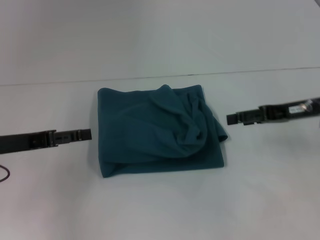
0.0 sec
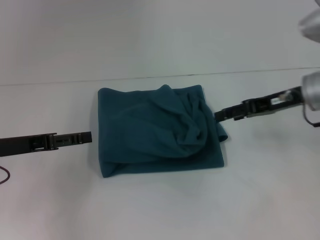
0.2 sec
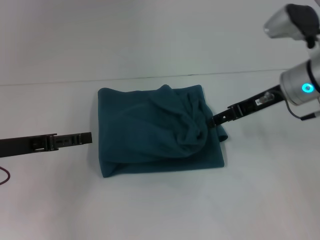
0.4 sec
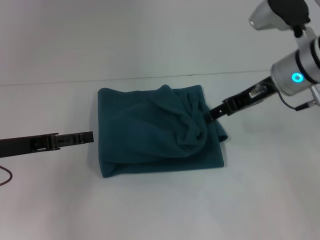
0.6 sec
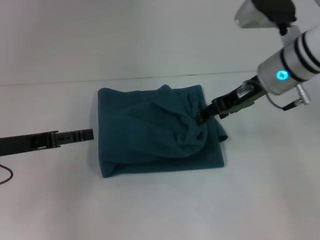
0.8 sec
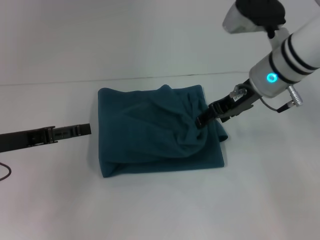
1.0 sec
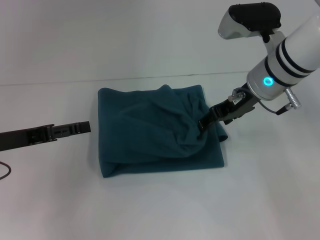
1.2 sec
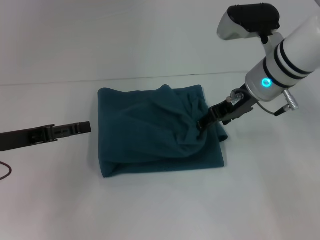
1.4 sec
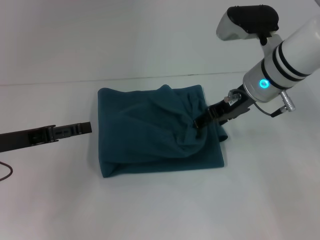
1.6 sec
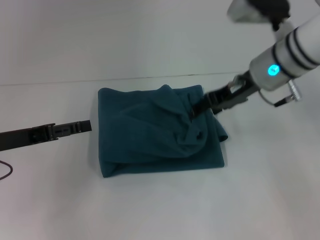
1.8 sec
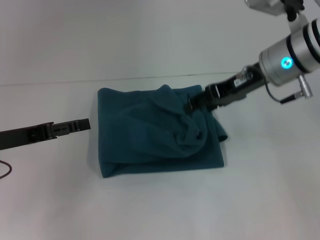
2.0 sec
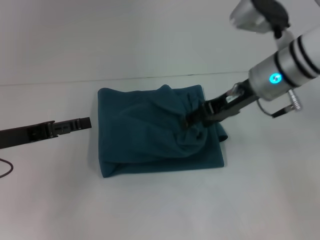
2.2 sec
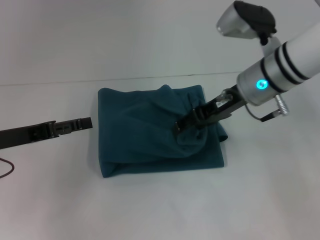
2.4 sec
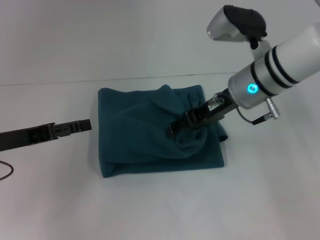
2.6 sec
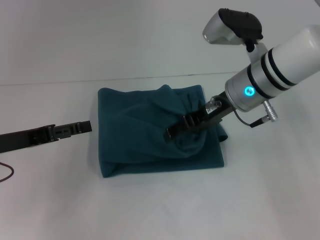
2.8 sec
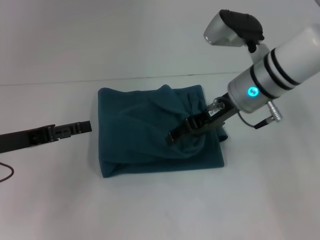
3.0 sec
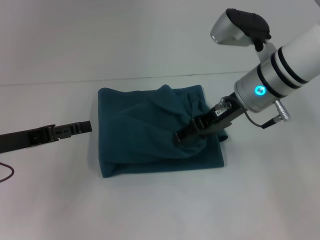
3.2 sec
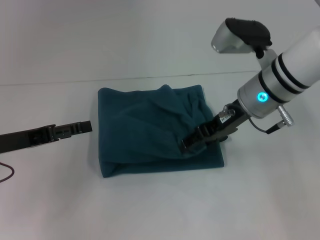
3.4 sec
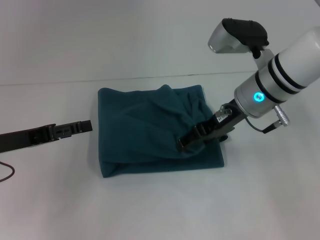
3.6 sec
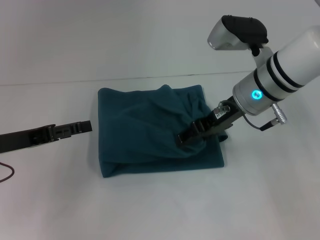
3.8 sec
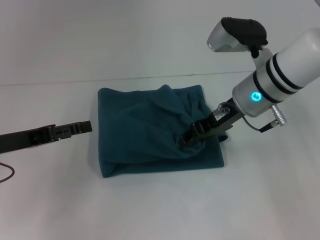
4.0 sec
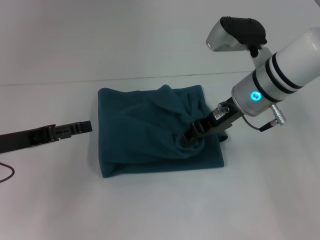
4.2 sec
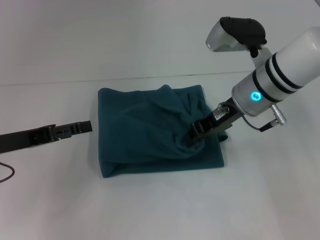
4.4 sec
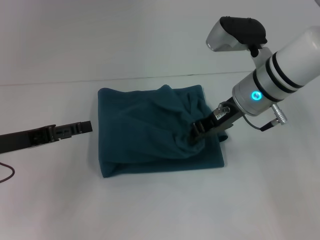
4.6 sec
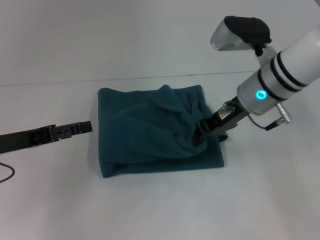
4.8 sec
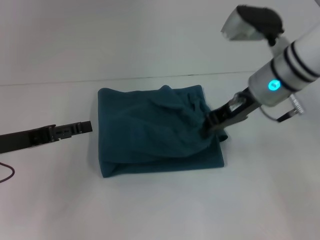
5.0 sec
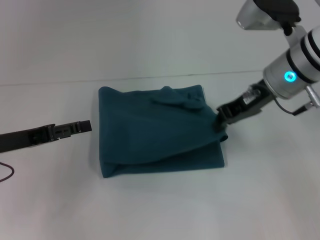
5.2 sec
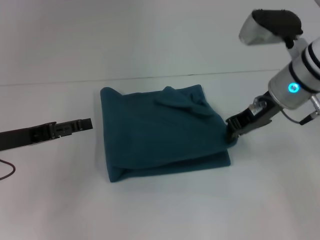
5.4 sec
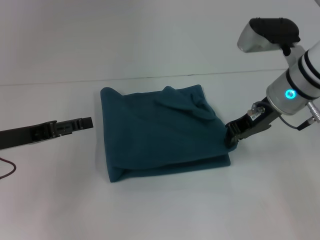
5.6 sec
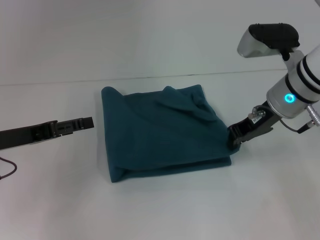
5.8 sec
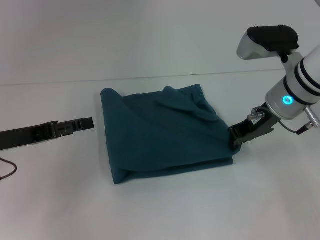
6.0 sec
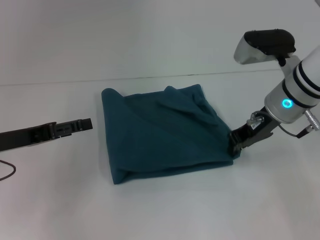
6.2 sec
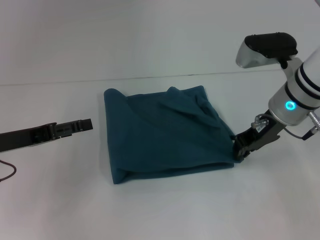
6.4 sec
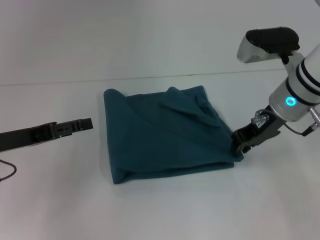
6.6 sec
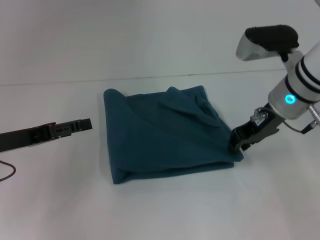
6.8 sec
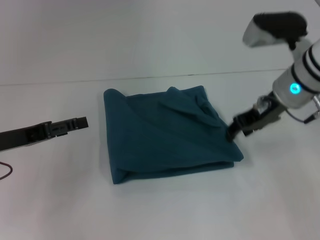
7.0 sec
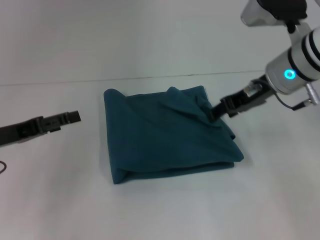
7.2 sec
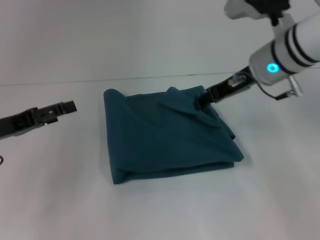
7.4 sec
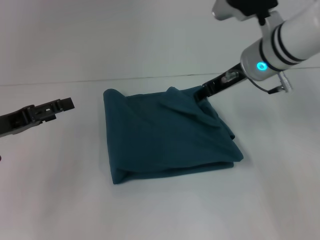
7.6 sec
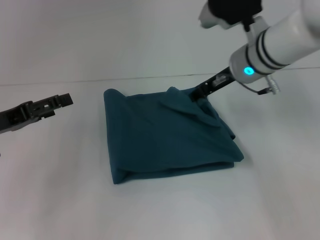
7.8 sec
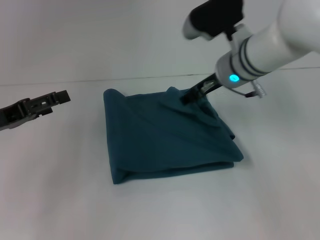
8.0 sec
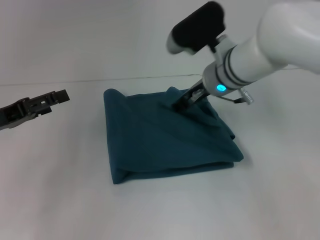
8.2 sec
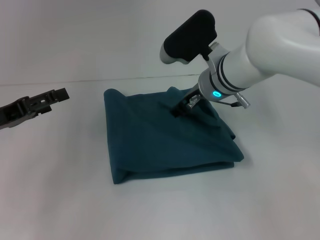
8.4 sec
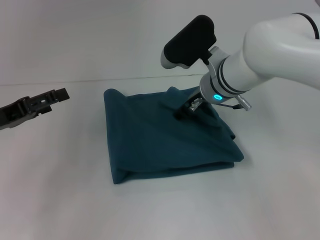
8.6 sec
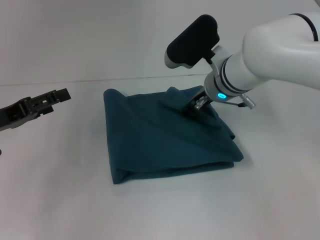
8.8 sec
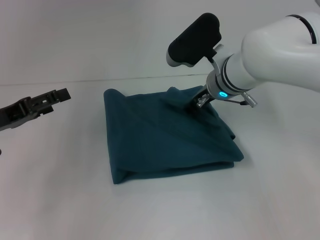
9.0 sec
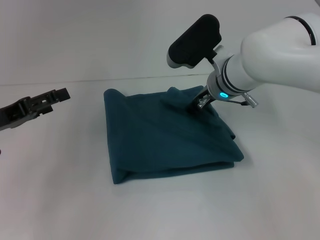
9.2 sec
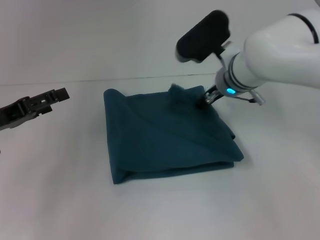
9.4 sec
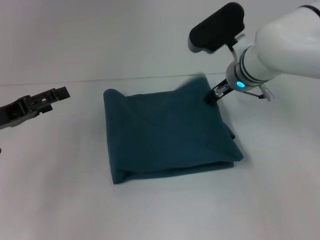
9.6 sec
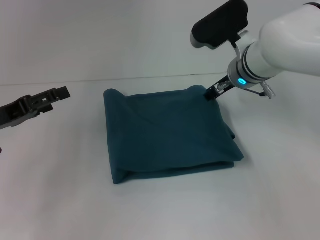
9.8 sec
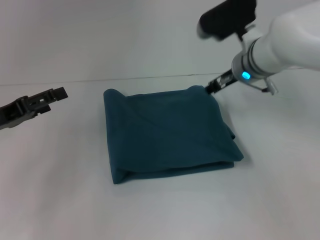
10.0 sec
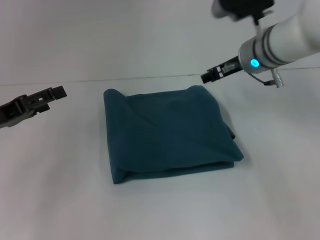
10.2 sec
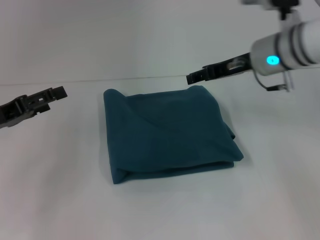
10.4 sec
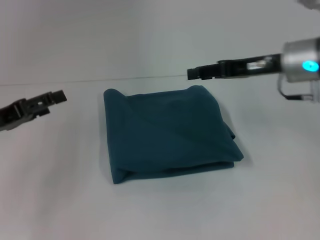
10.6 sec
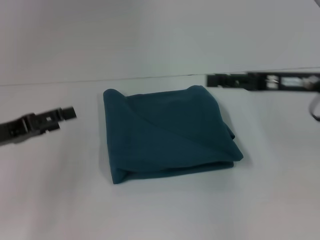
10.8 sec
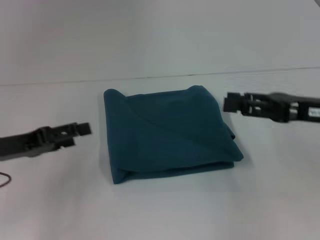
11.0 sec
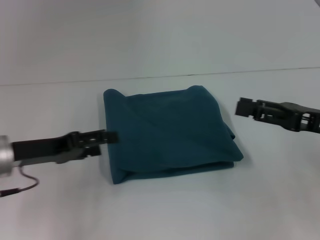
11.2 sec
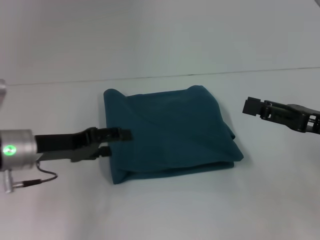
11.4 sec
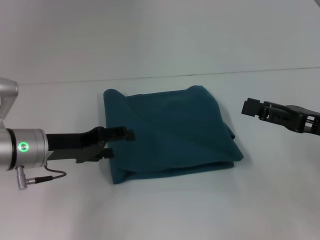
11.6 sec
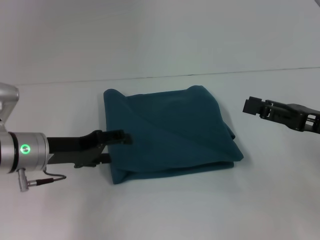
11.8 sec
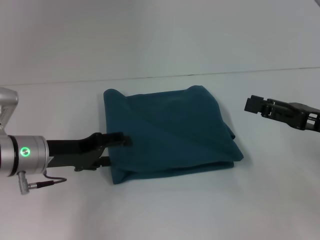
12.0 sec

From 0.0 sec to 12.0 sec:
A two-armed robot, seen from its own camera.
From 0.0 sec to 1.6 sec: The right gripper goes about 10 cm to the left.
From 1.6 sec to 3.0 sec: The grippers move only a little.
From 3.0 sec to 4.4 sec: The right gripper closes.
From 4.4 sec to 6.0 sec: The right gripper closes its fingers.
From 6.0 sec to 7.6 sec: The right gripper moves some 5 cm, and opens.
From 7.6 sec to 9.0 sec: The right gripper is displaced downward and to the left by roughly 10 cm.
From 9.0 sec to 10.4 sec: The right gripper heads to the right, covering roughly 10 cm.
From 10.4 sec to 12.0 sec: The left gripper heads to the right, covering some 10 cm. The right gripper shifts roughly 20 cm backward, to the right and downward.

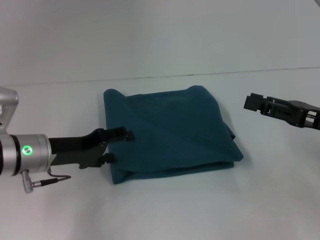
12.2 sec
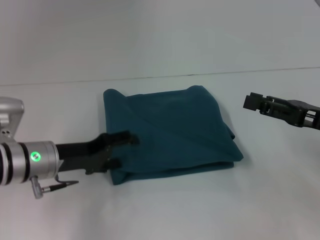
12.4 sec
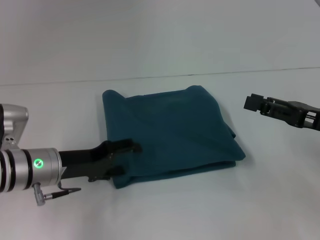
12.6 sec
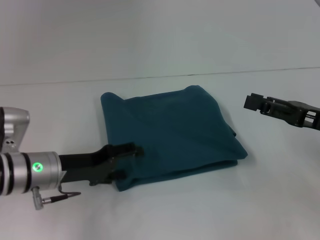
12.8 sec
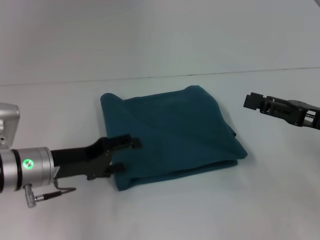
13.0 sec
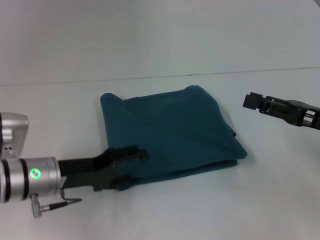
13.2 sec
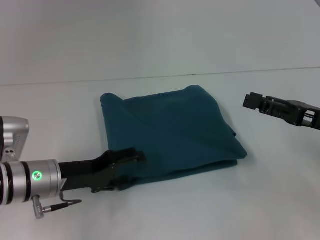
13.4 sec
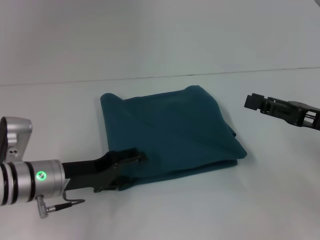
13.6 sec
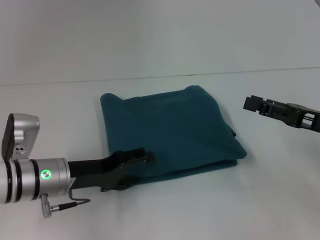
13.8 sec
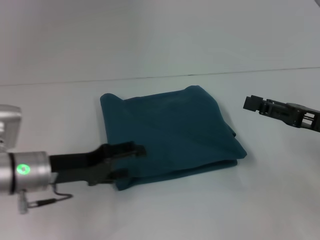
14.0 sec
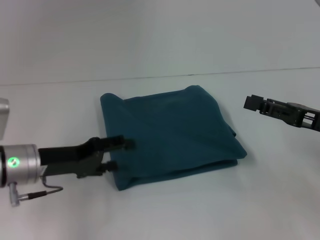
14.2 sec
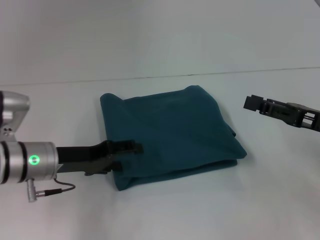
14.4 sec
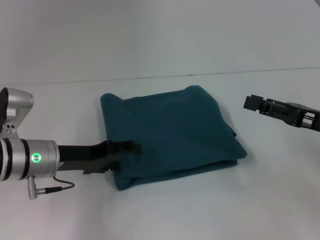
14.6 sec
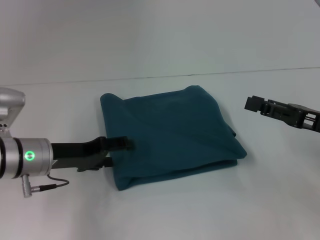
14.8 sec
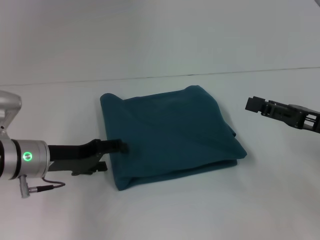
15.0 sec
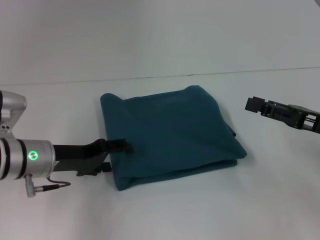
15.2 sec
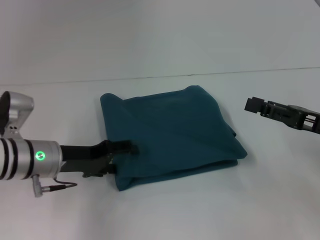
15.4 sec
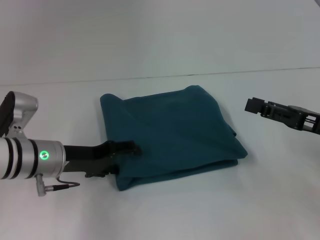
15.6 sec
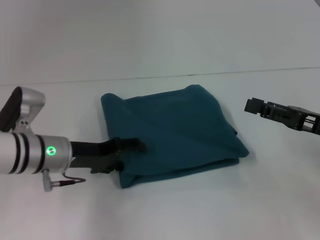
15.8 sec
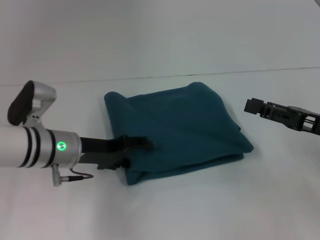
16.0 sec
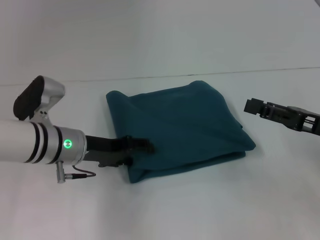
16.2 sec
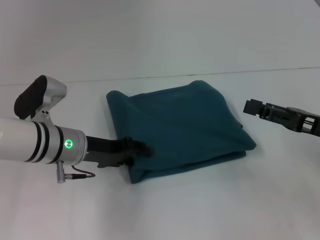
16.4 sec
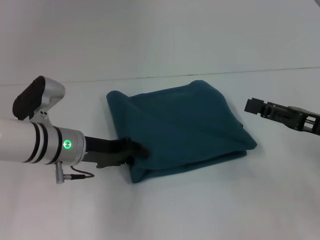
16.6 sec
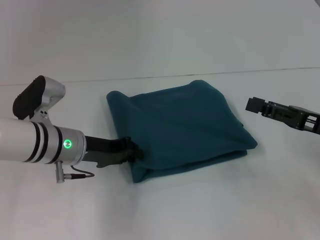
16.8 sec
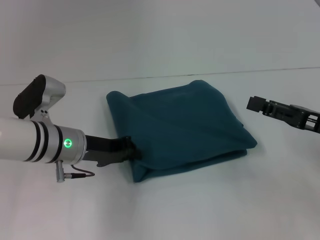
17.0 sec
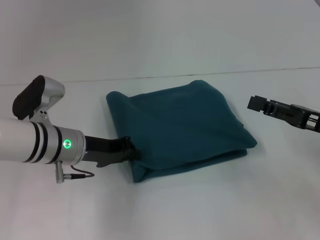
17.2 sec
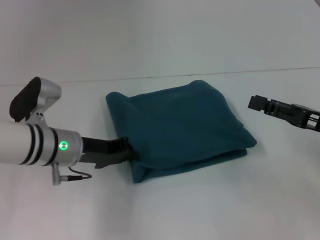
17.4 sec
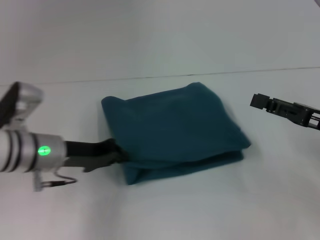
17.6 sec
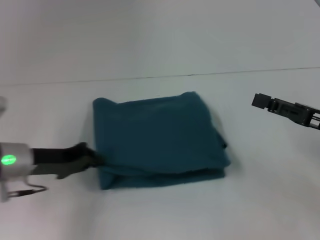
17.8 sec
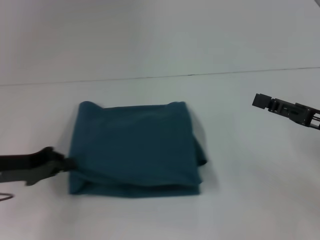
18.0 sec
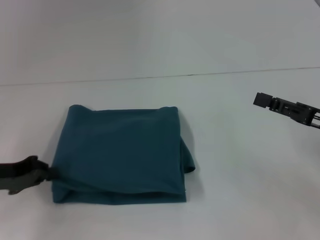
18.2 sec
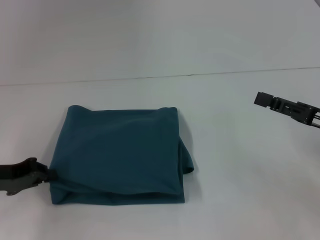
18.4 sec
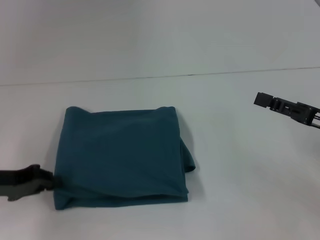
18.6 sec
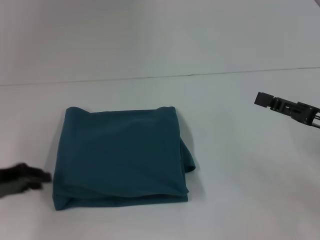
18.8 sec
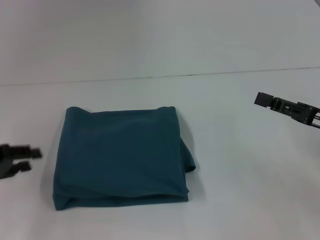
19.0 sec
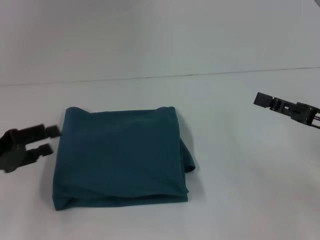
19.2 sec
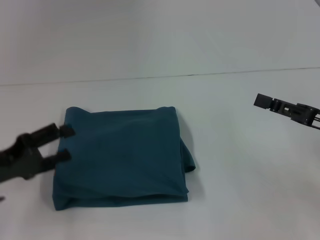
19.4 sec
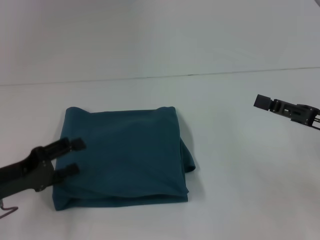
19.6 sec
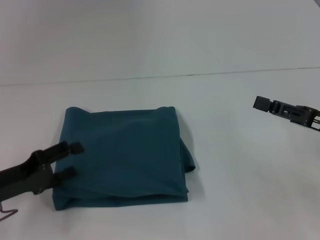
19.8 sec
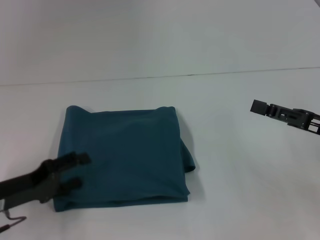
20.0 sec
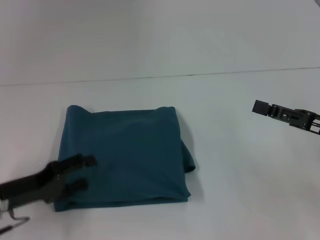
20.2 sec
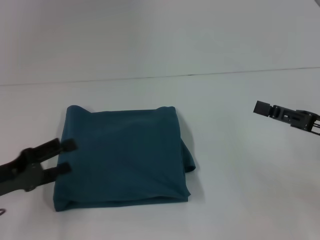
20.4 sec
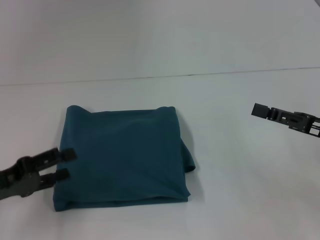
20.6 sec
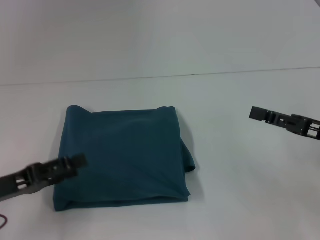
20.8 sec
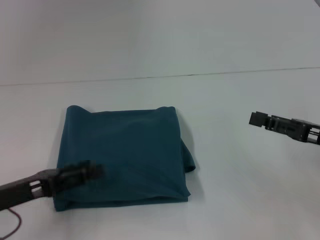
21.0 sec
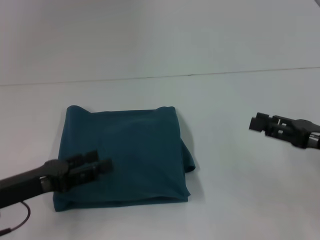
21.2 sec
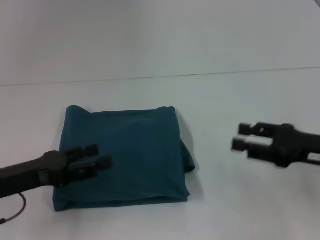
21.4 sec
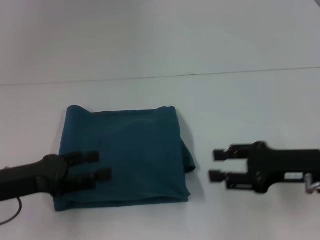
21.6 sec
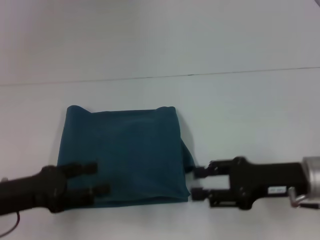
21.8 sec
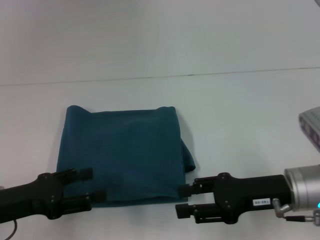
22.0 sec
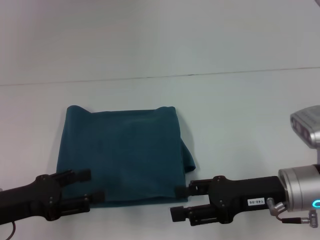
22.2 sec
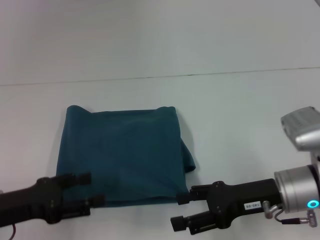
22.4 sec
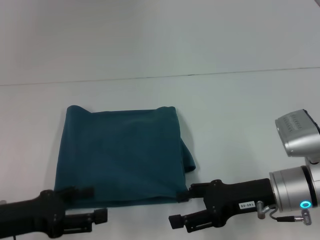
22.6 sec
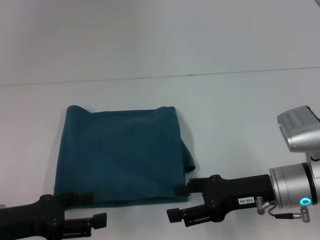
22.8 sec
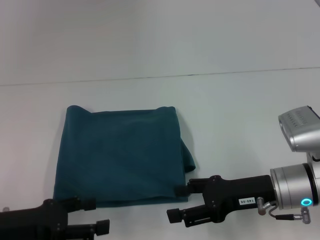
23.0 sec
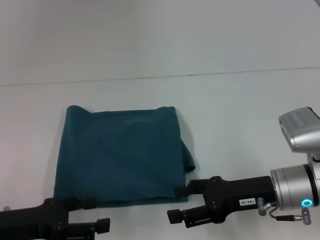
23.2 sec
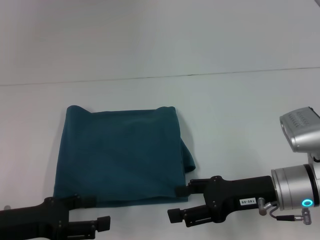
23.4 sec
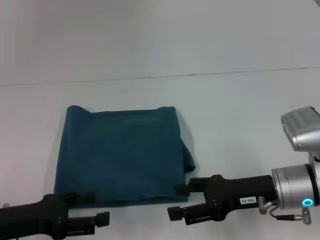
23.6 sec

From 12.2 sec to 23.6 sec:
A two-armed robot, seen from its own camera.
From 12.2 sec to 15.0 sec: The grippers stay close to where they were, moving slightly.
From 15.0 sec to 16.4 sec: The left gripper shifts approximately 5 cm to the right.
From 16.4 sec to 17.8 sec: The left gripper goes some 5 cm to the left, and closes up.
From 17.8 sec to 19.4 sec: The left gripper heads to the left and backward, covering roughly 10 cm, and opens.
From 19.4 sec to 20.8 sec: The grippers stay close to where they were, moving slightly.
From 20.8 sec to 22.2 sec: The right gripper moves to the left, approximately 10 cm.
From 22.2 sec to 23.6 sec: The grippers stay close to where they were, moving slightly.
